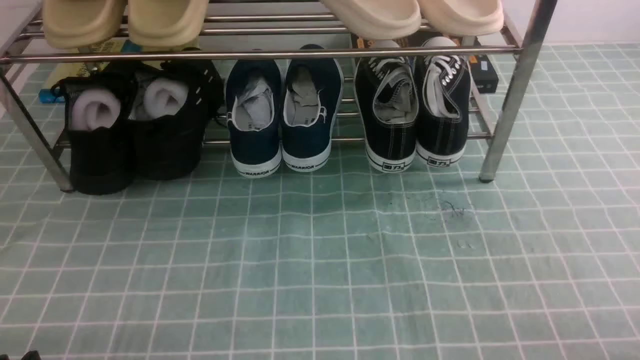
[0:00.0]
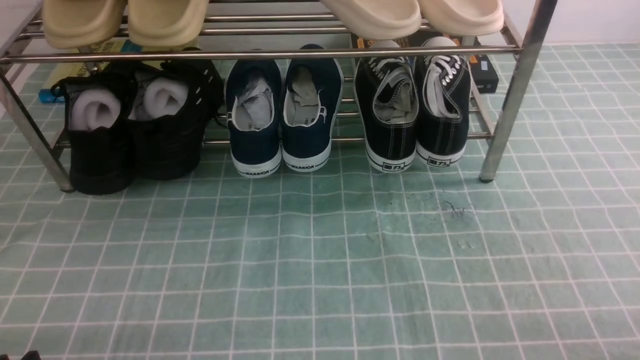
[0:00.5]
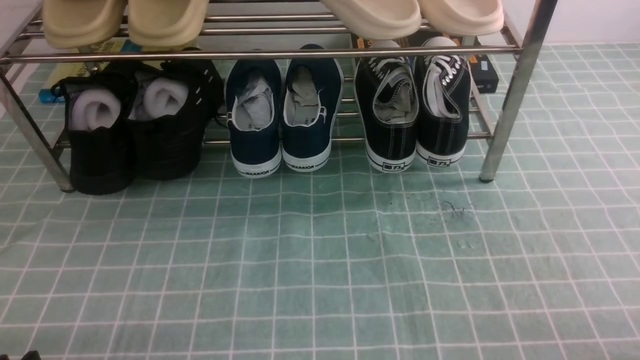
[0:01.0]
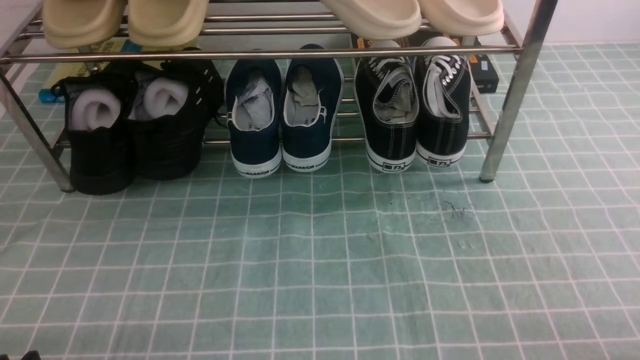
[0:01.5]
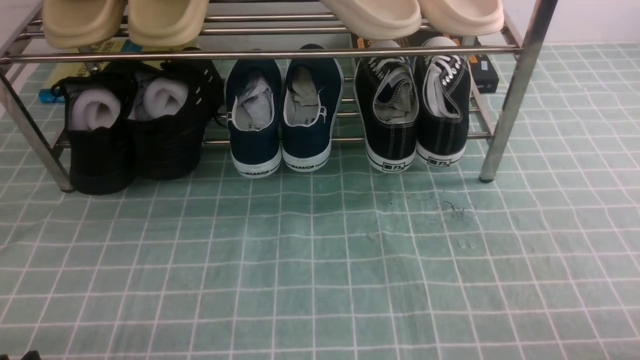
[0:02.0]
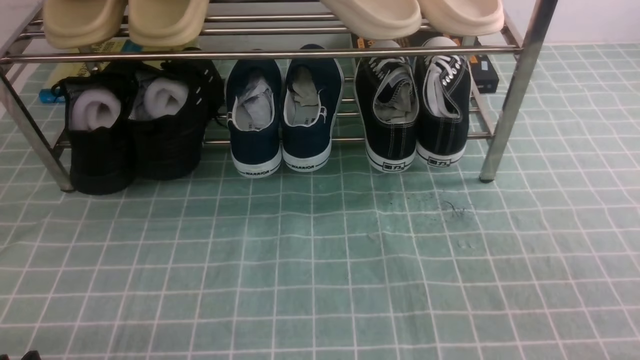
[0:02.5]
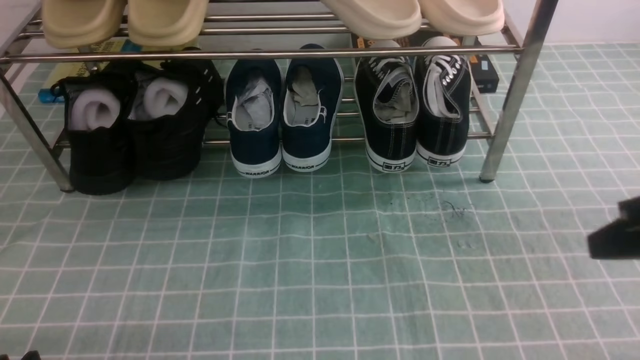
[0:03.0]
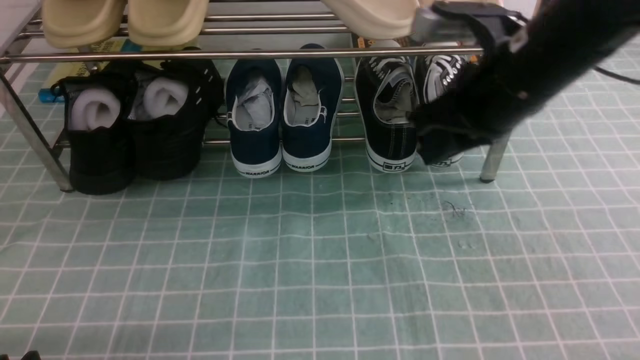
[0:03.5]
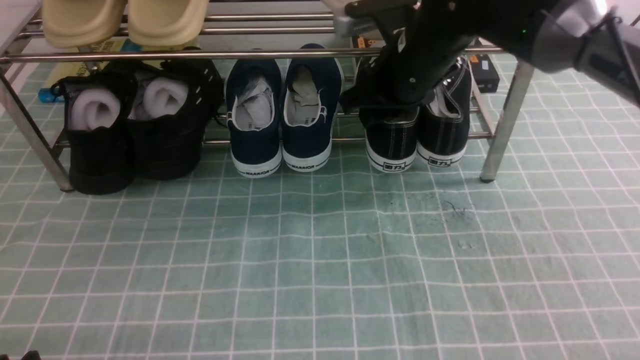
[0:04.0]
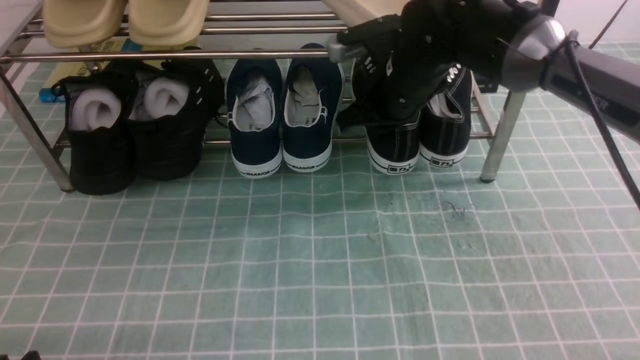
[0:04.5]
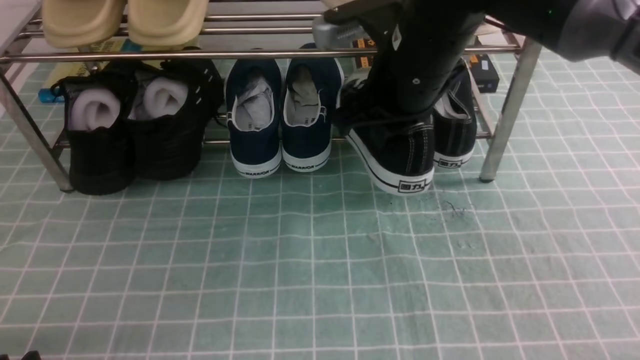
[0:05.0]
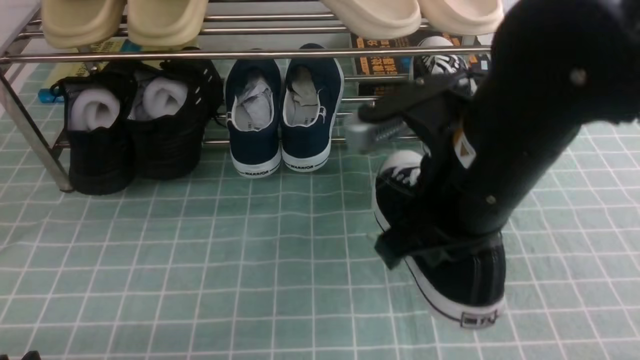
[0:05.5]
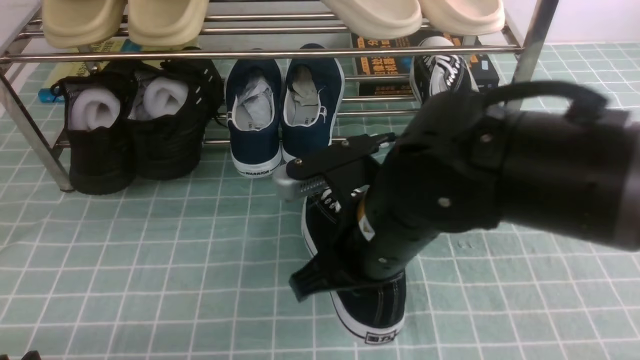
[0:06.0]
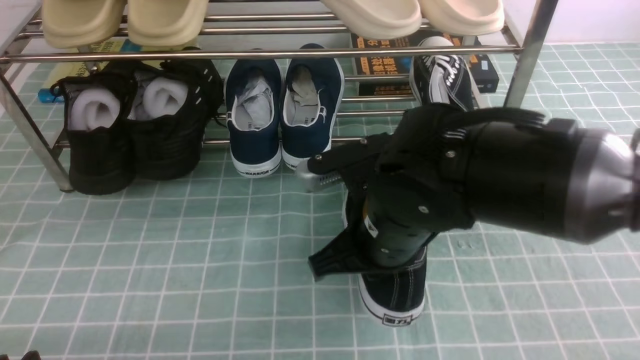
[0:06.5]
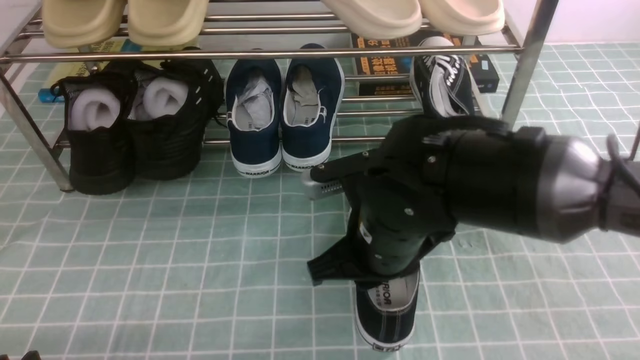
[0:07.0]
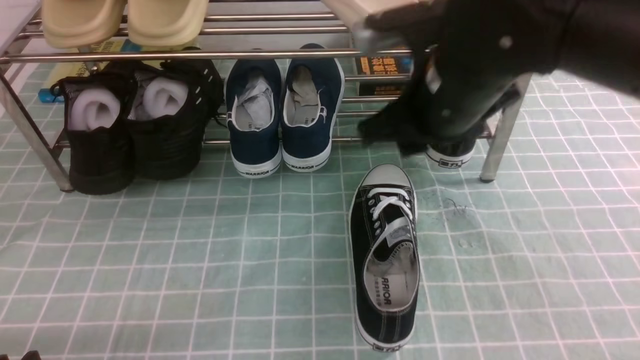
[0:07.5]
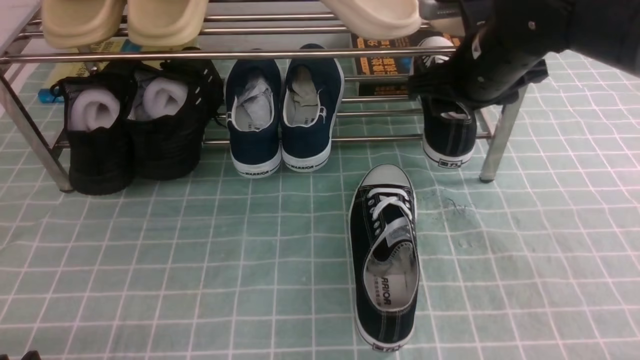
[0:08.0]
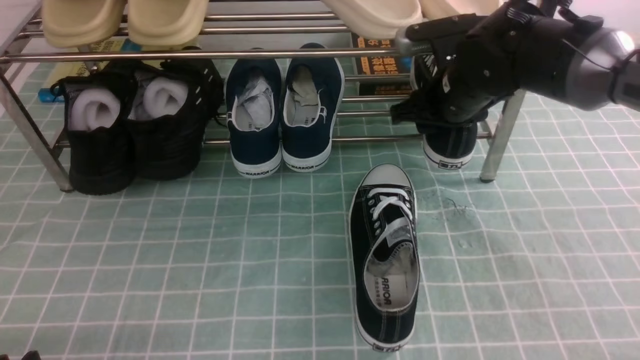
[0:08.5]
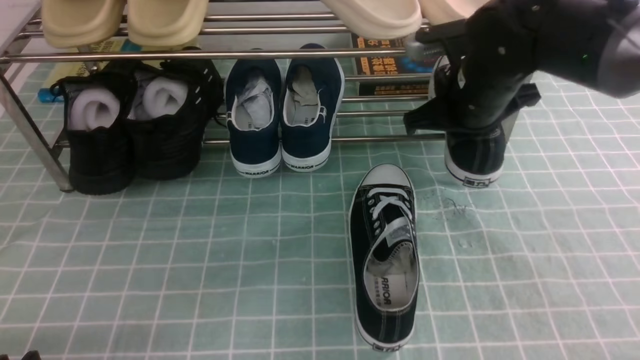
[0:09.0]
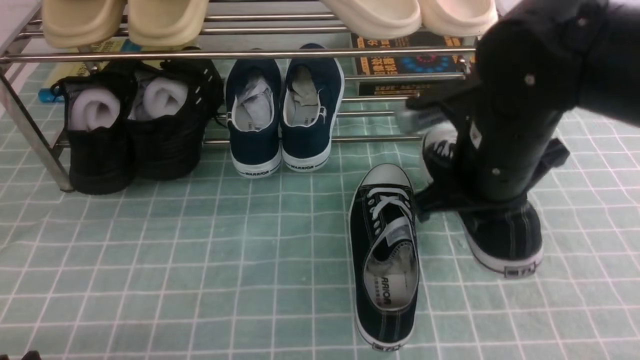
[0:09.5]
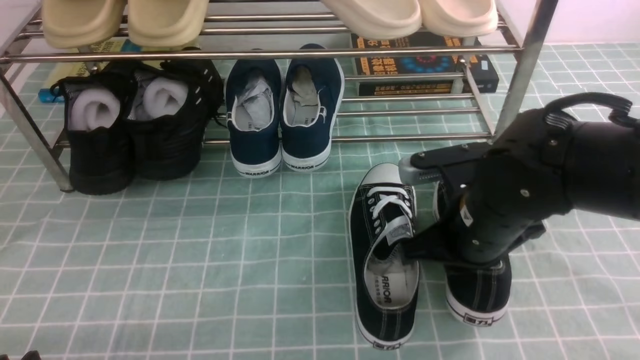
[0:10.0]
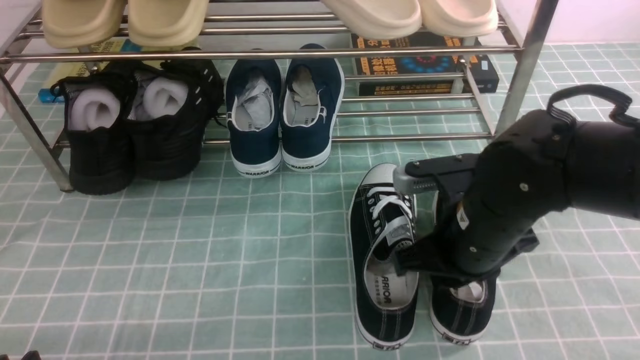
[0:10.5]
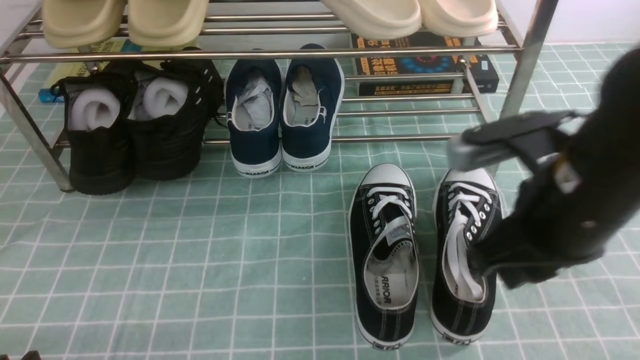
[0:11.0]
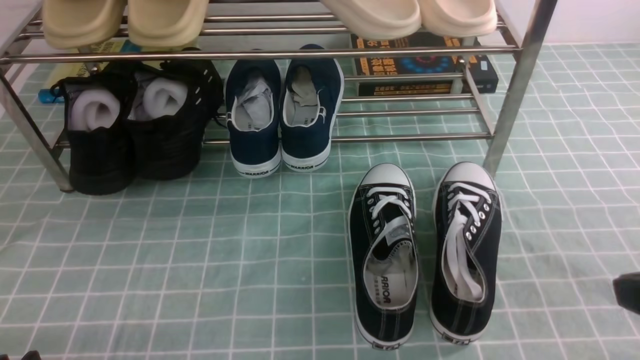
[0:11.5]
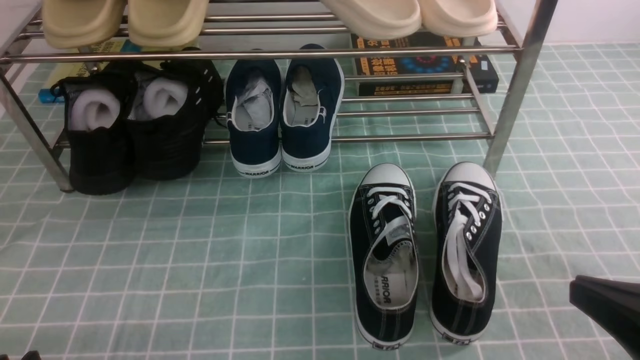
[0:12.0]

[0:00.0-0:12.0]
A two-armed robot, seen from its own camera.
Step, 0:00.0 to 0:04.0: use the right arm to clamp a shoe on the right side of the shoe rack.
Step, 0:04.5 to 0:07.0: use the right arm to take out the clamped shoe from the shoe rack and put it down.
Step, 0:07.5 to 0:08.5: use the right arm to clamp a shoe on the right side of the shoe rack.
Step, 0:09.0 to 0:10.0: use the right arm to take out the clamped shoe from the shoe rack and put it down.
0:02.0 to 0:04.0: The right gripper shifts some 40 cm forward and to the left, and closes, then reopens.
0:04.0 to 0:06.0: The right gripper goes approximately 20 cm backward, and closes.
0:06.0 to 0:08.0: The right gripper goes approximately 20 cm forward and to the right, and opens up.
0:08.0 to 0:10.0: The right gripper moves backward and downward, about 15 cm, and closes.
0:10.0 to 0:12.0: The right gripper travels backward and to the right by some 20 cm, and opens, then closes again.

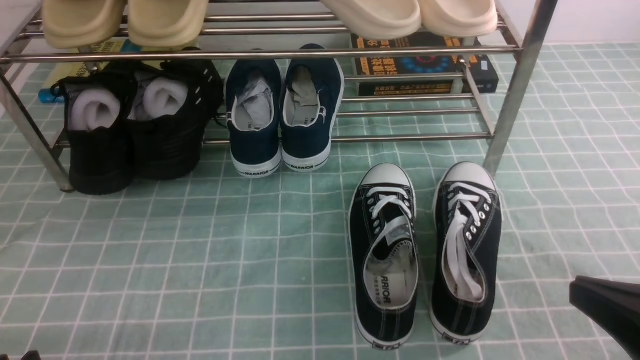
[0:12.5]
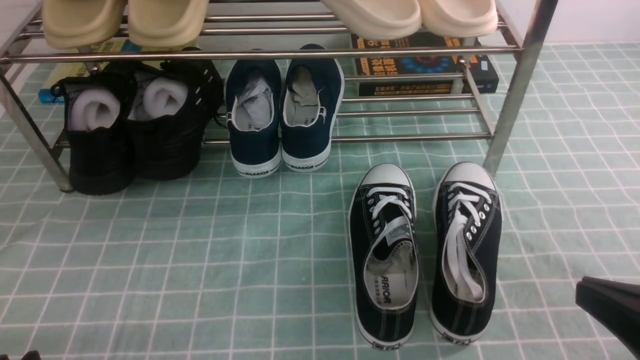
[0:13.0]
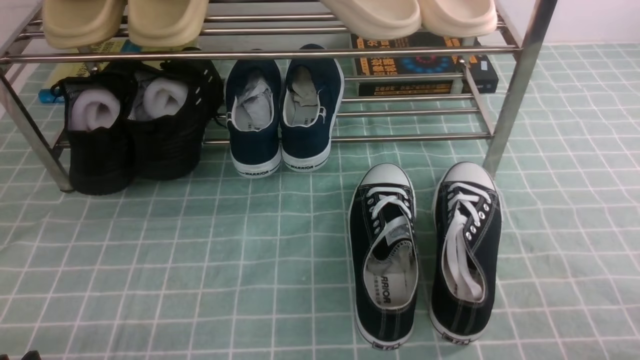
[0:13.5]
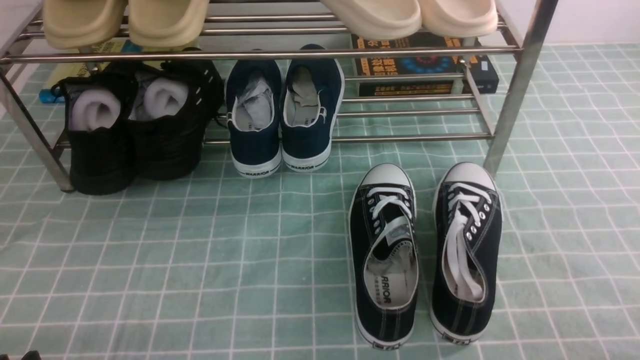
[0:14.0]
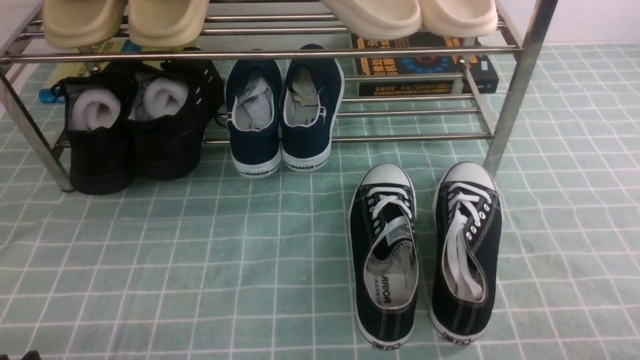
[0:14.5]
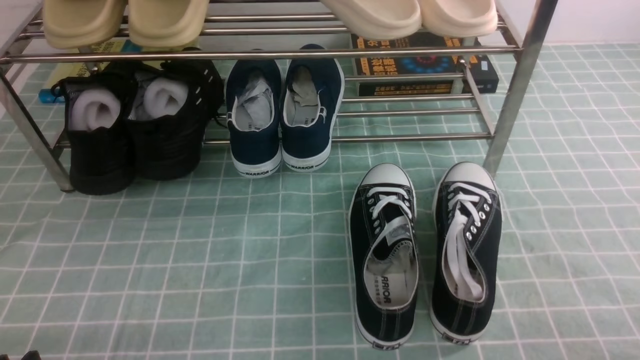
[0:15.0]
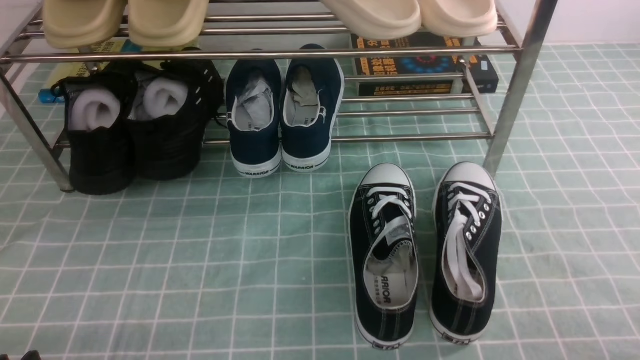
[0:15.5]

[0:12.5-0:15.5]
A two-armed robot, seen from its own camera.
0:12.5 to 0:14.0: The right gripper goes about 10 cm downward and to the right.
0:14.0 to 0:15.5: Neither gripper changes place.
